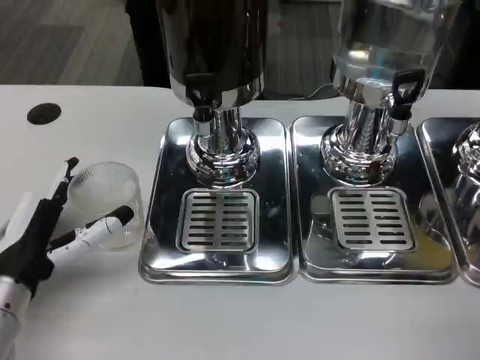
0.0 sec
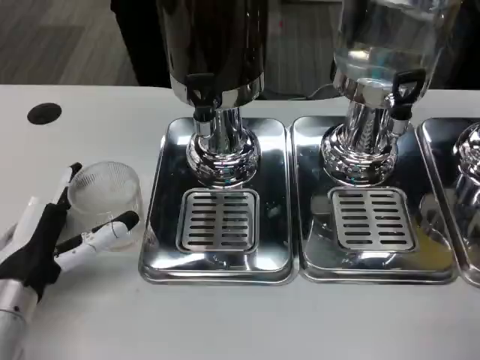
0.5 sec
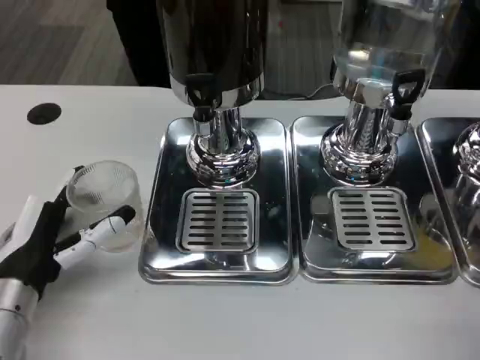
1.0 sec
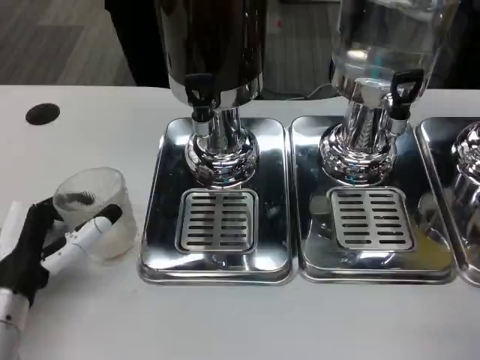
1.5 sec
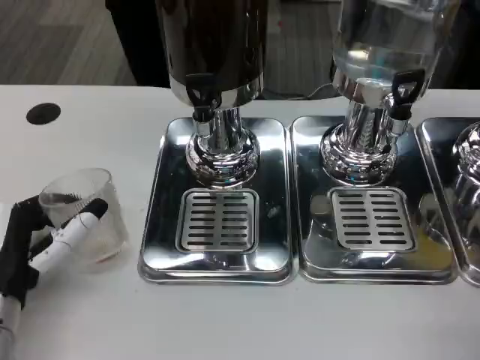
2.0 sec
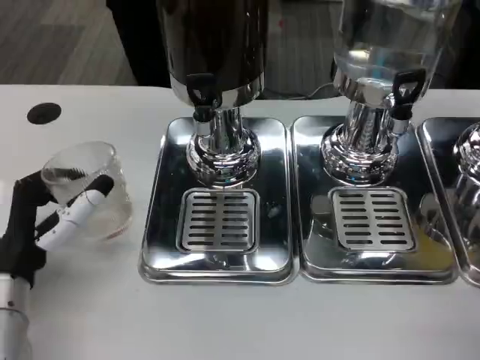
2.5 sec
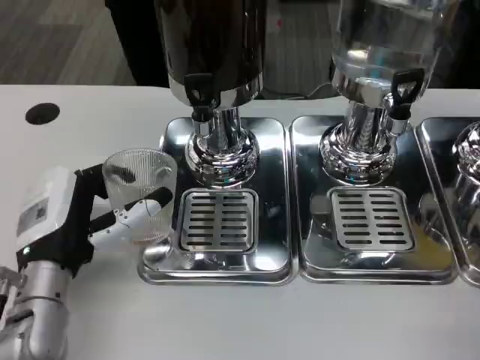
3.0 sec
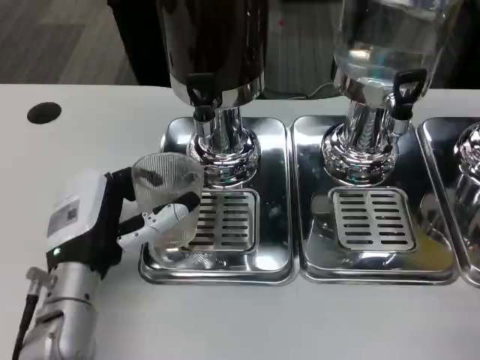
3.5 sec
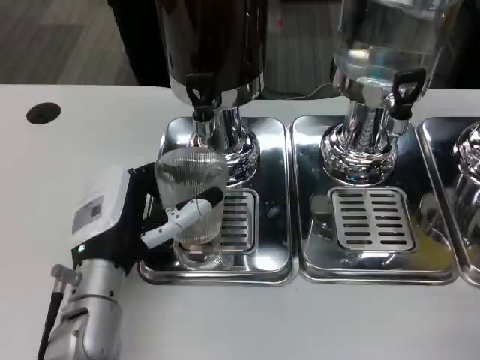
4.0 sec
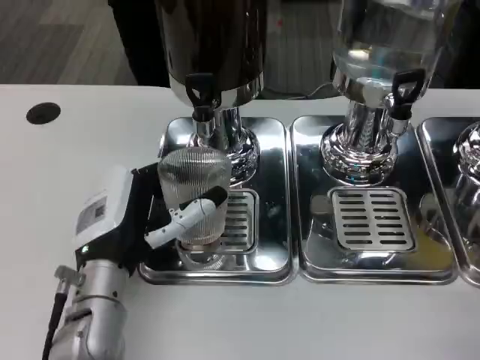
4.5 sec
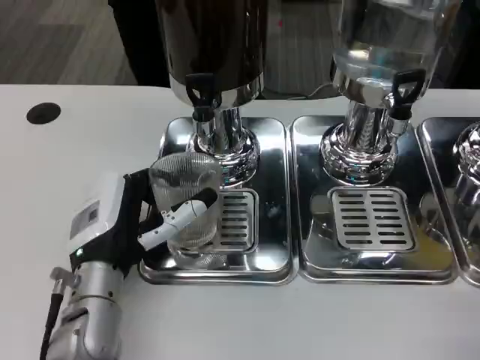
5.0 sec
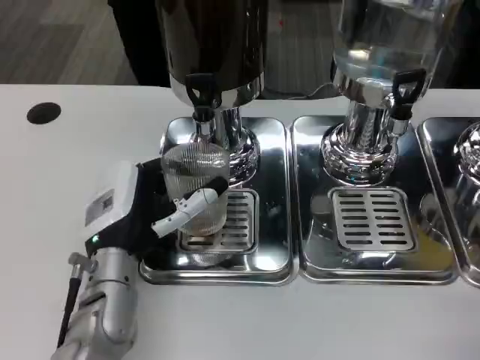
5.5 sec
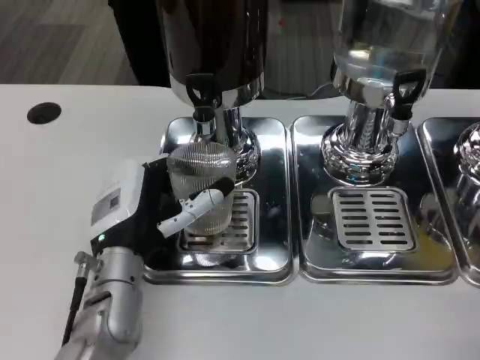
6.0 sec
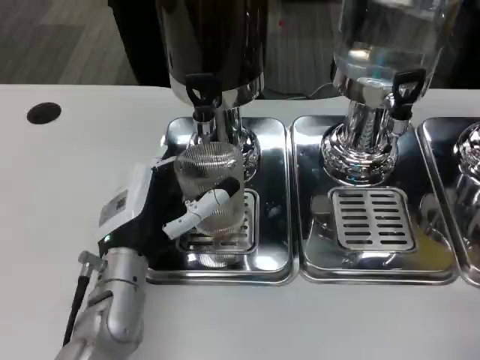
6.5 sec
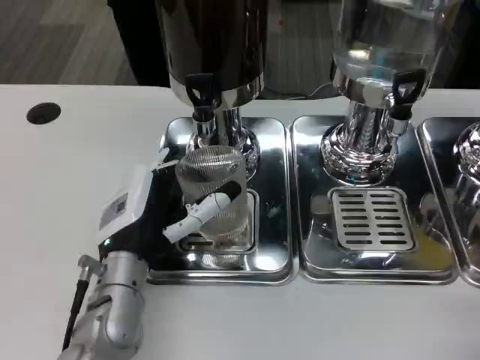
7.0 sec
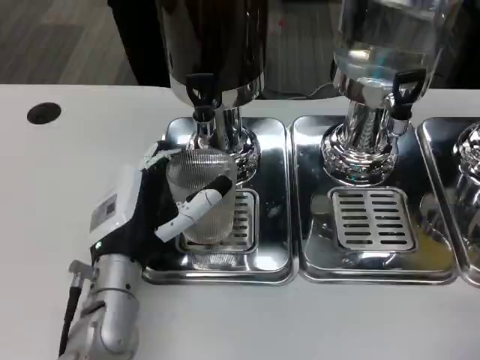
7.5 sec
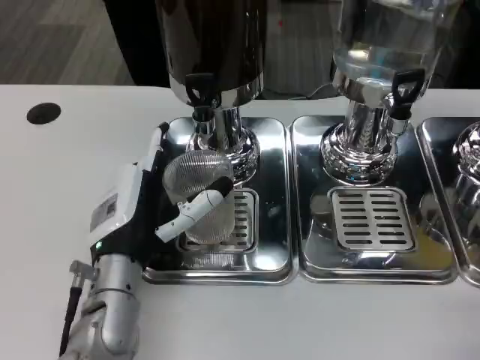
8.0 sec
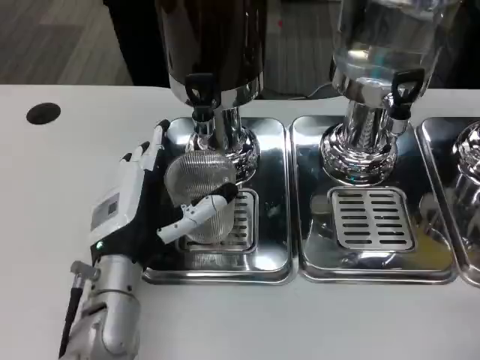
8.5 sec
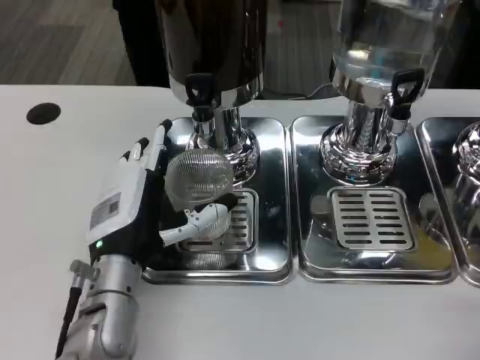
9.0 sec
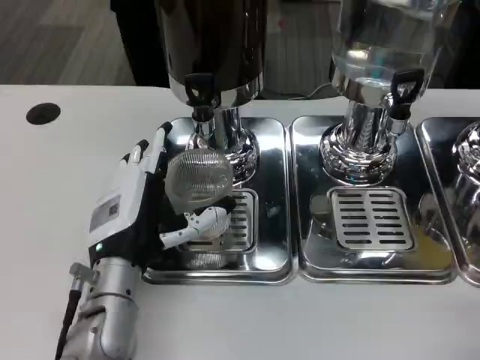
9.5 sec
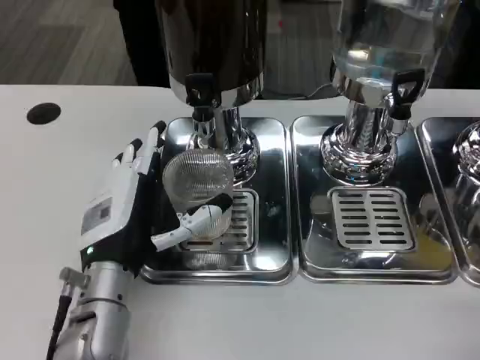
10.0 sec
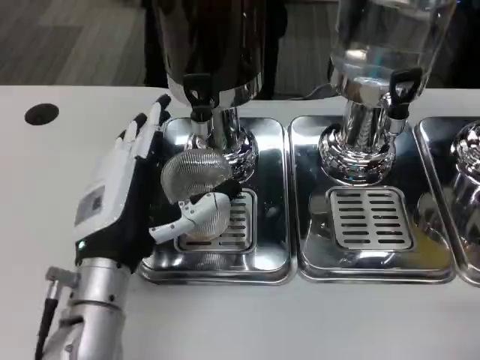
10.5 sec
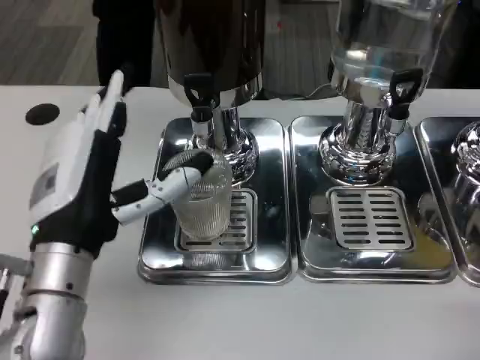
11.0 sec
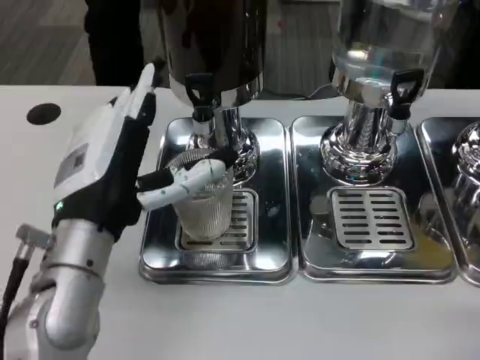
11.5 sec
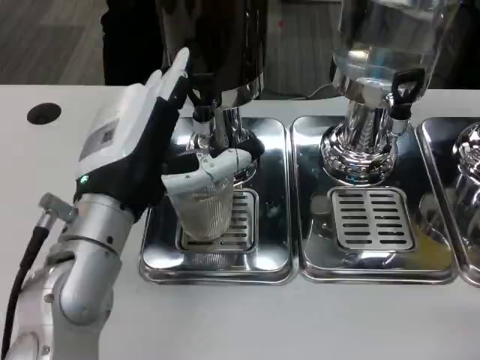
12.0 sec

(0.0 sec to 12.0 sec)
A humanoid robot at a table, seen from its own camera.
Task of the whole recording: Grasp the cup under the faucet to collect the drink, then remove the cup.
0.0 sec - 2.0 sec: The hands make only small movements.
2.0 sec - 4.0 sec: The left hand shifts about 10 cm to the right.
4.0 sec - 10.0 sec: The hands make only small movements.
10.0 sec - 12.0 sec: The left hand moves upward, approximately 10 cm.

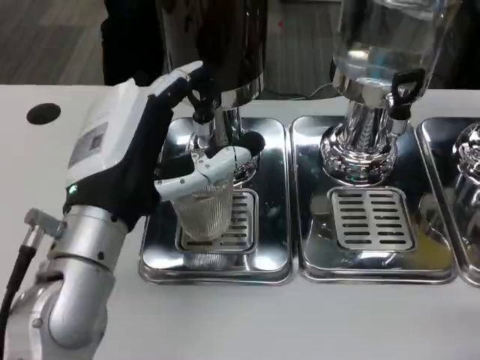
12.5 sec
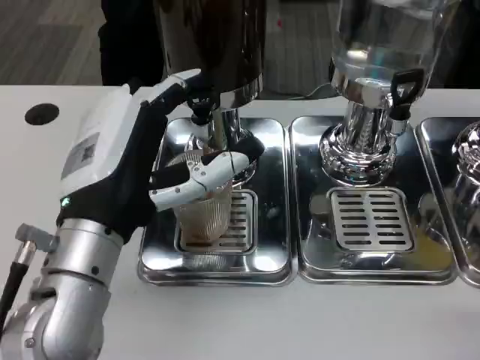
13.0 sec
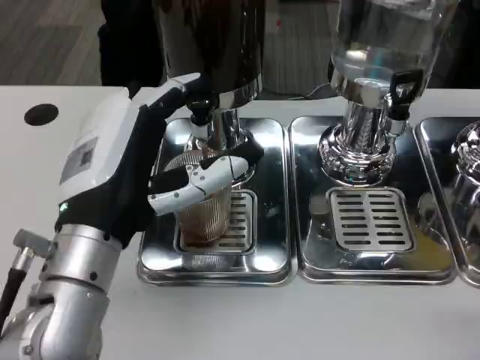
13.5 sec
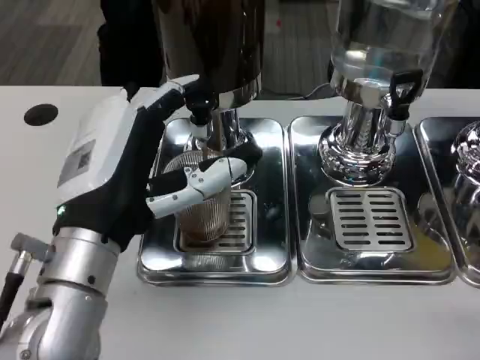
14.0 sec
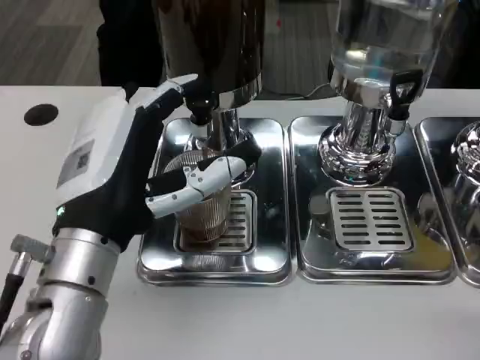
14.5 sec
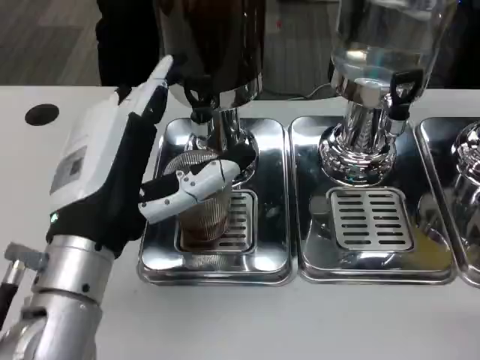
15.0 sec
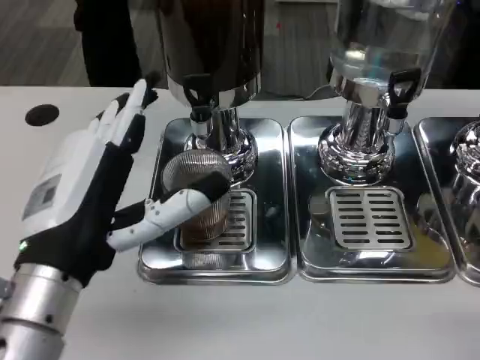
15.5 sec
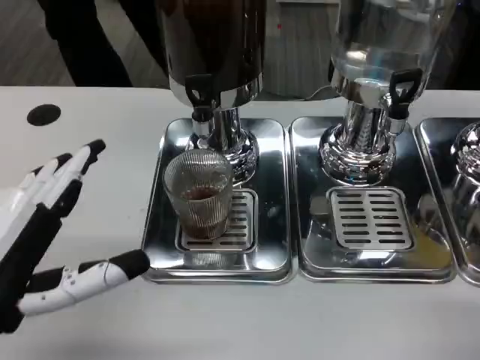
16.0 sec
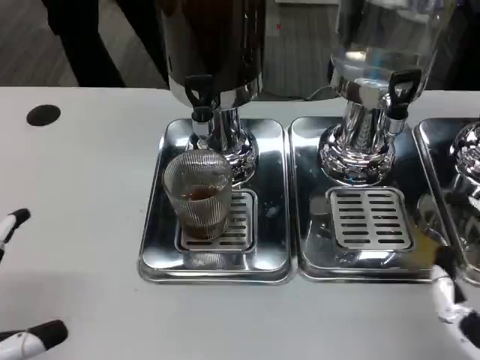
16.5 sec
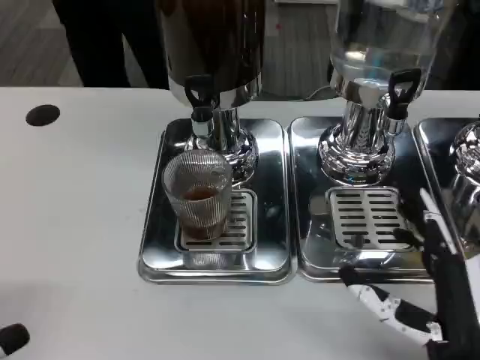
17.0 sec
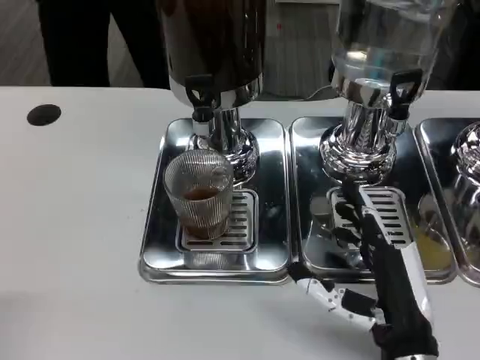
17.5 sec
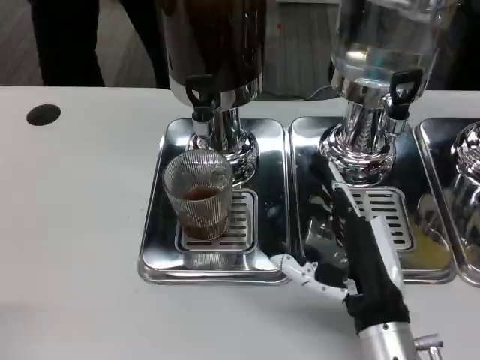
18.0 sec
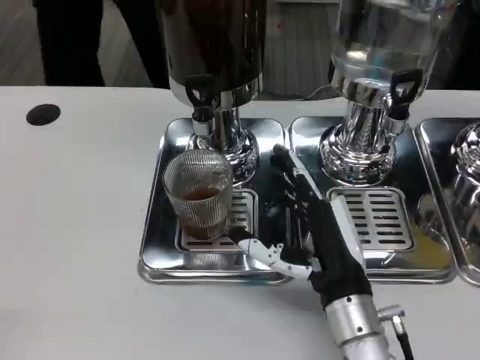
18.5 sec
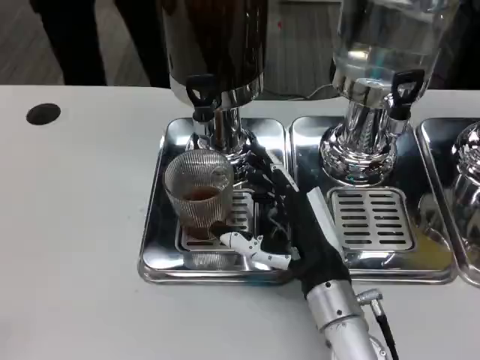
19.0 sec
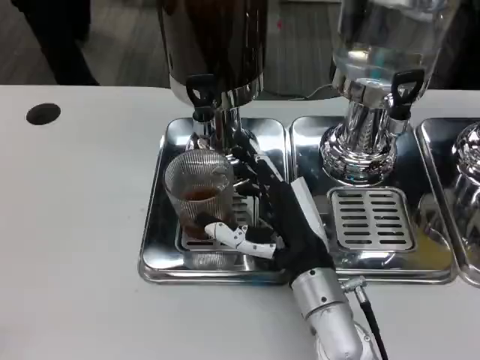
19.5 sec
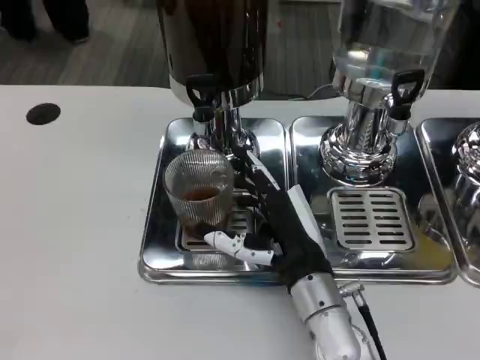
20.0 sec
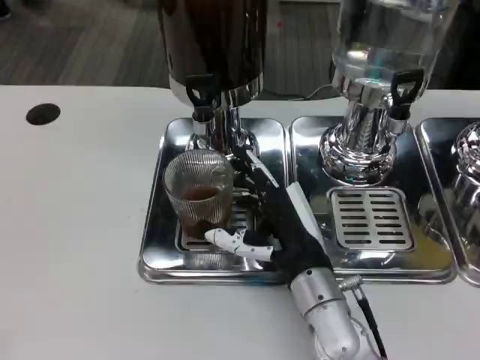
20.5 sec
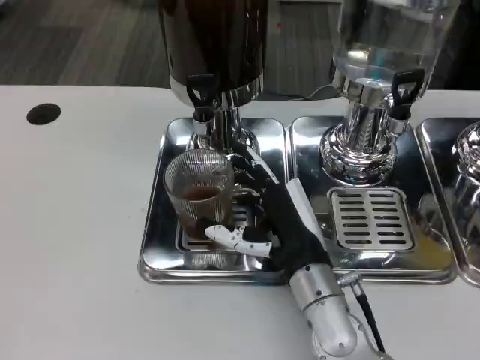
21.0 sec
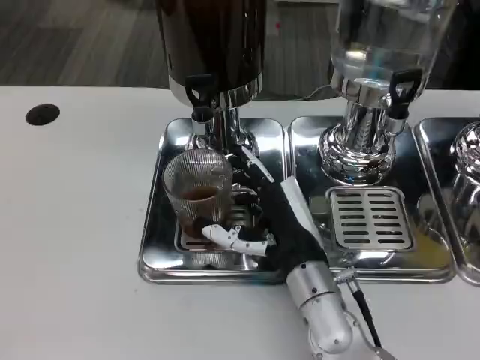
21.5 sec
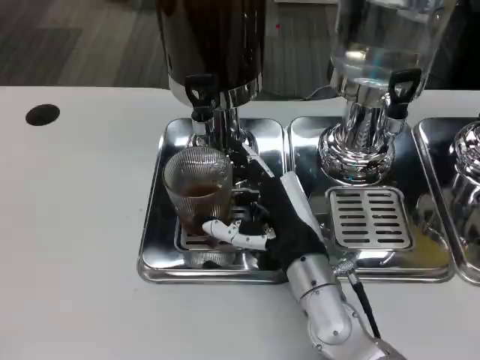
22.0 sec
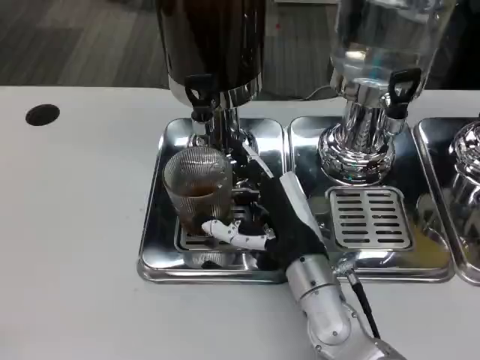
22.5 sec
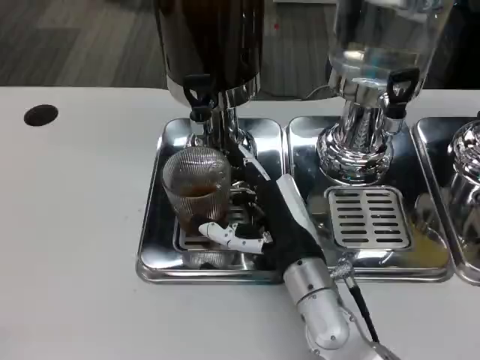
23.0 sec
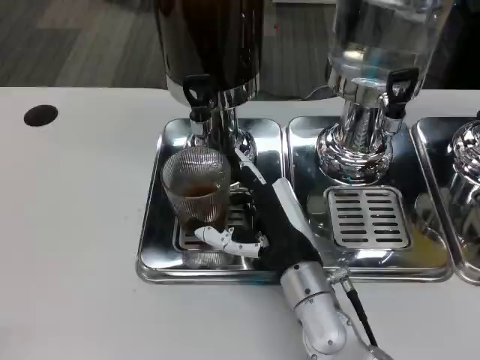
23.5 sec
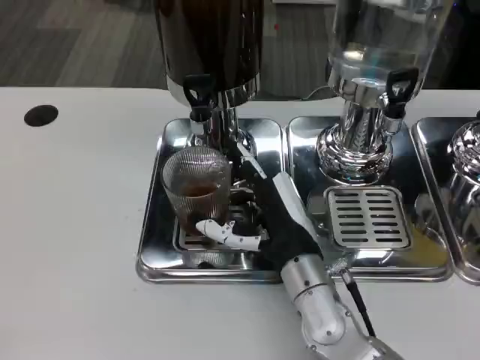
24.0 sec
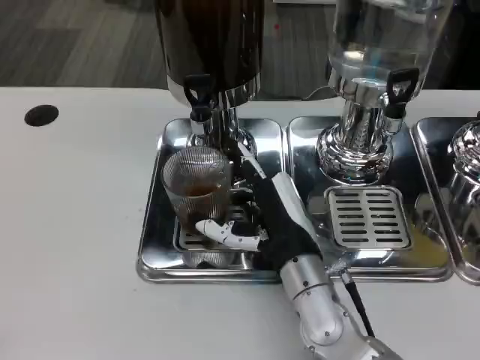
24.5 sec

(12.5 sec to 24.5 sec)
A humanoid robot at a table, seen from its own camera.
Task of the whole recording: Grasp the cup under the faucet to collect the drink, then remove the cup.
12.5 sec - 14.5 sec: There are only small adjustments of the hands.
14.5 sec - 16.5 sec: The right hand goes about 5 cm forward. The left hand shifts roughly 20 cm to the left and backward.
16.5 sec - 18.5 sec: The left hand heads backward, covering some 5 cm. Meanwhile the right hand goes some 15 cm forward and to the left.
18.5 sec - 22.5 sec: The hands stay close to where they were, moving slightly.
22.5 sec - 24.5 sec: Both hands stay put.

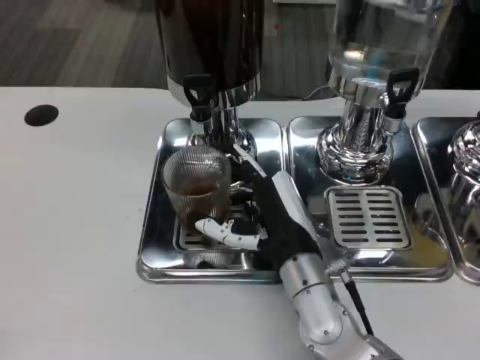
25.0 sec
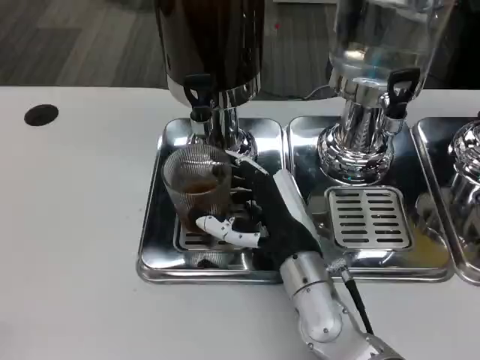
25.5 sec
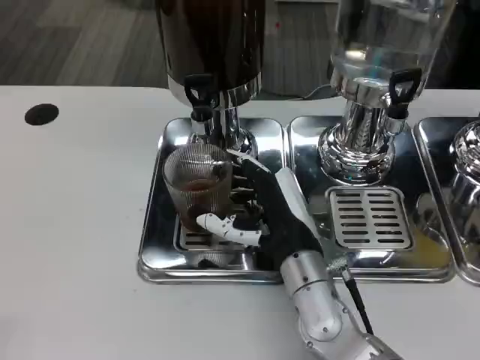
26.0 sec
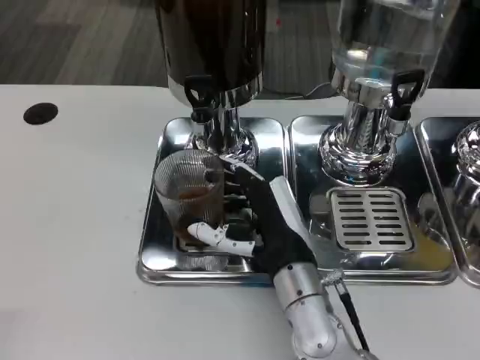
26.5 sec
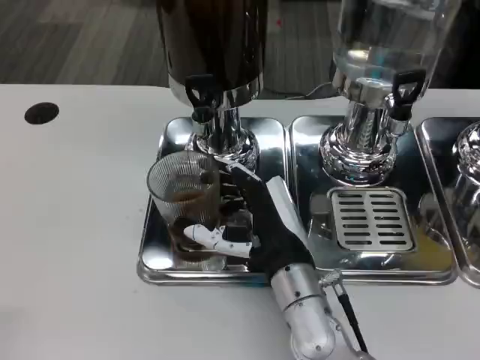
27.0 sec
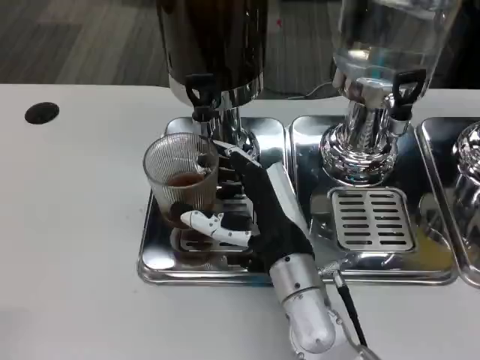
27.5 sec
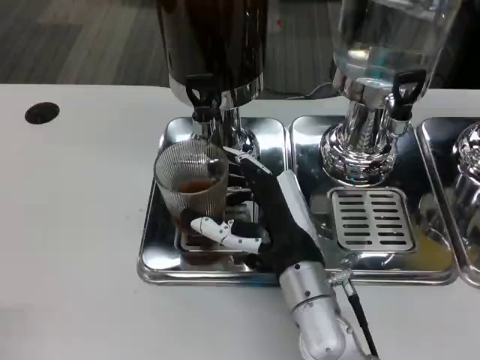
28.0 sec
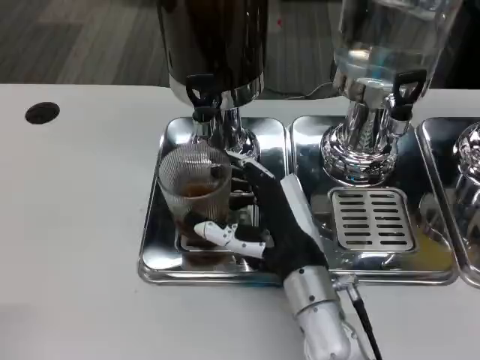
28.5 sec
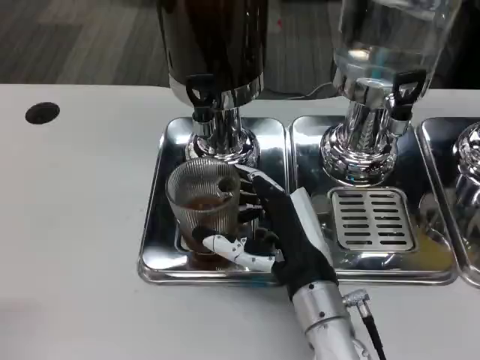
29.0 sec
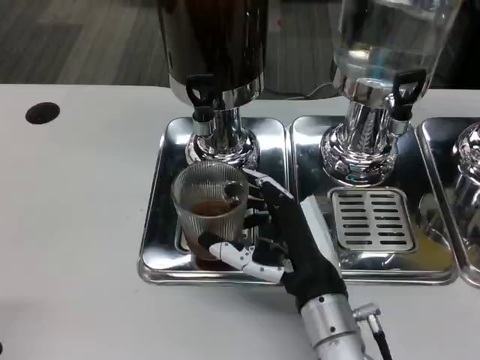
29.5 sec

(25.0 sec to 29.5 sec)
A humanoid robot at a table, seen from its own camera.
Task of the whole recording: Grasp the cup under the faucet to collect the drink, then remove the cup.
27.0 sec - 29.5 sec: The hands move only a little.
